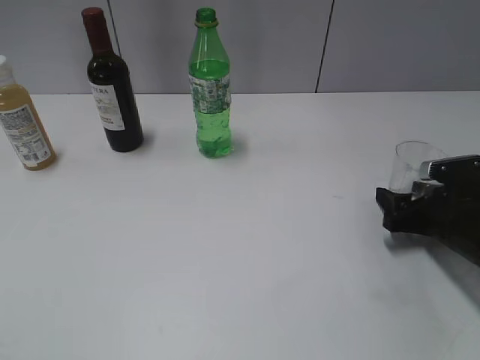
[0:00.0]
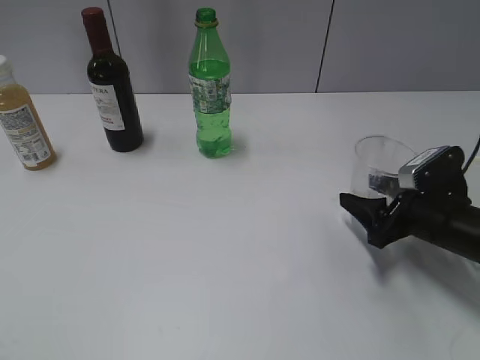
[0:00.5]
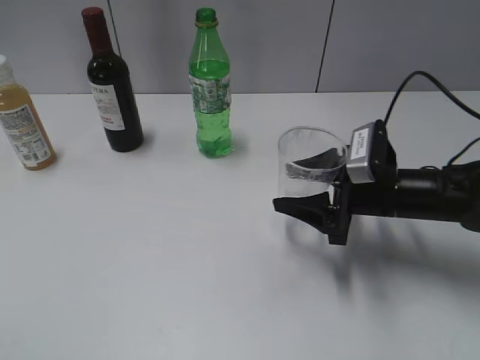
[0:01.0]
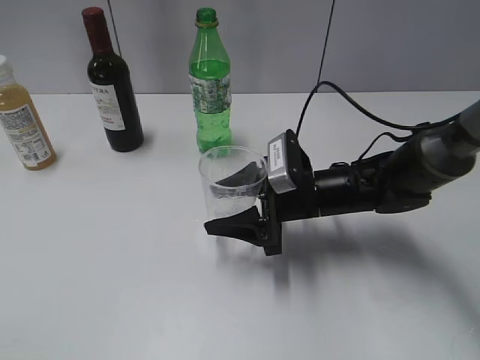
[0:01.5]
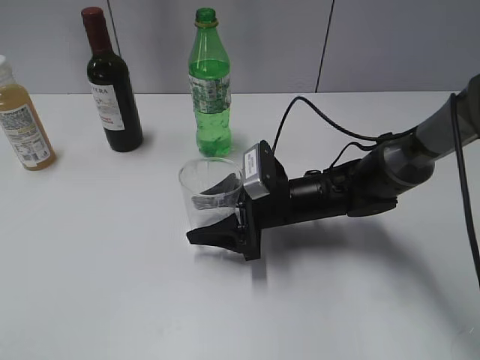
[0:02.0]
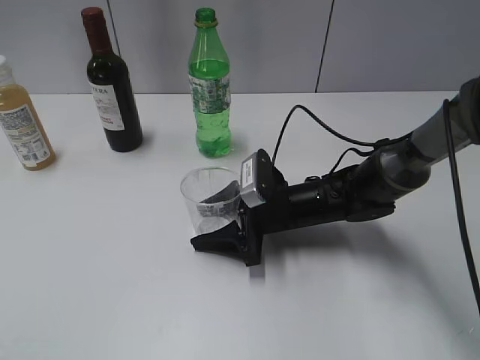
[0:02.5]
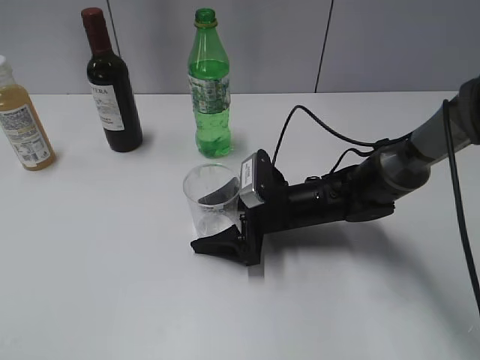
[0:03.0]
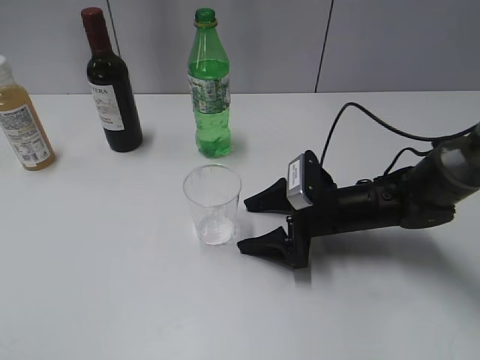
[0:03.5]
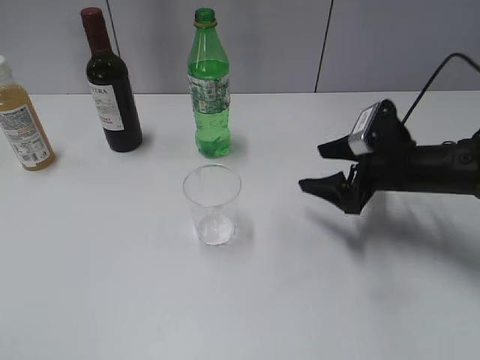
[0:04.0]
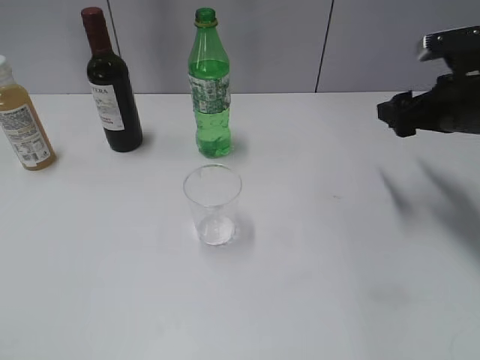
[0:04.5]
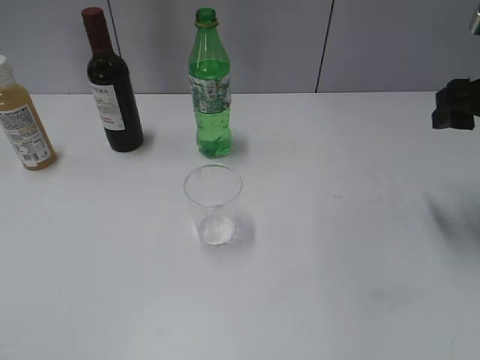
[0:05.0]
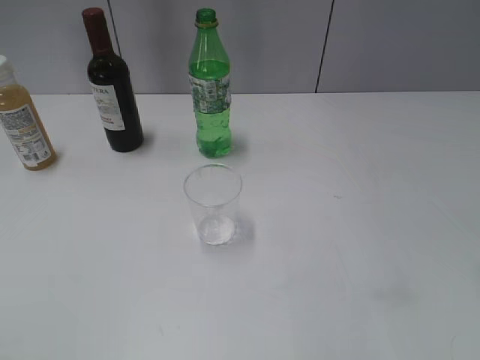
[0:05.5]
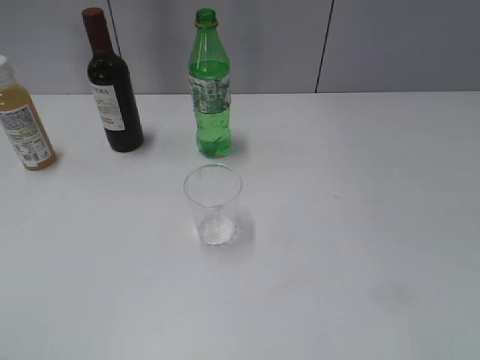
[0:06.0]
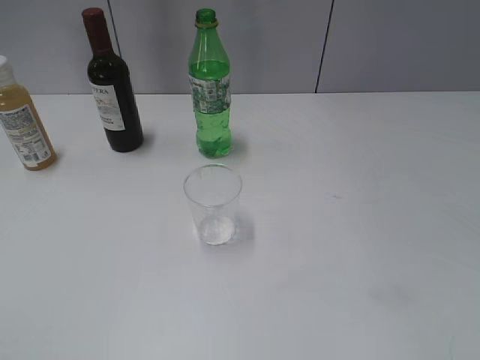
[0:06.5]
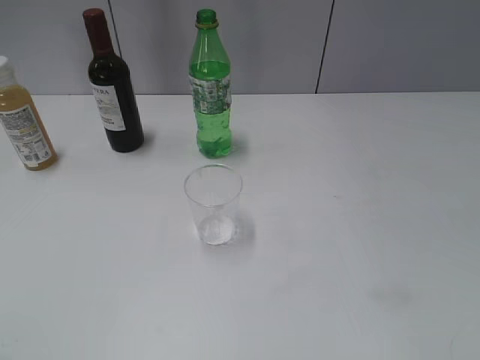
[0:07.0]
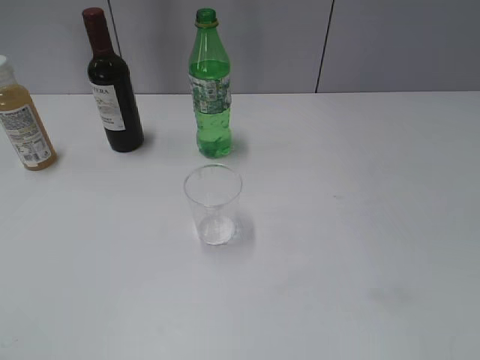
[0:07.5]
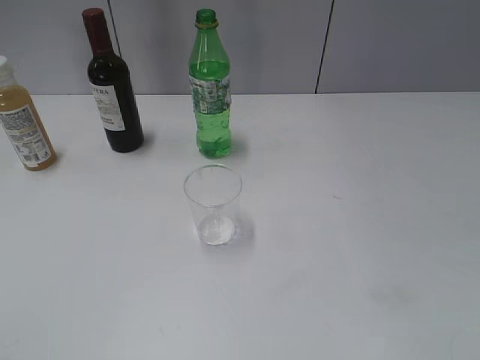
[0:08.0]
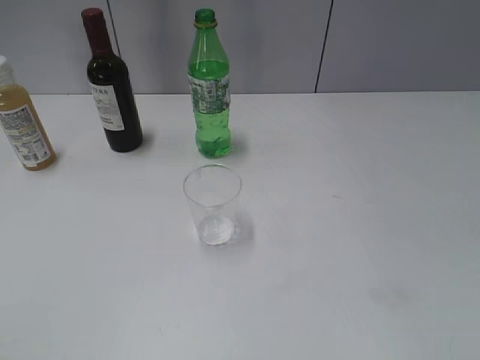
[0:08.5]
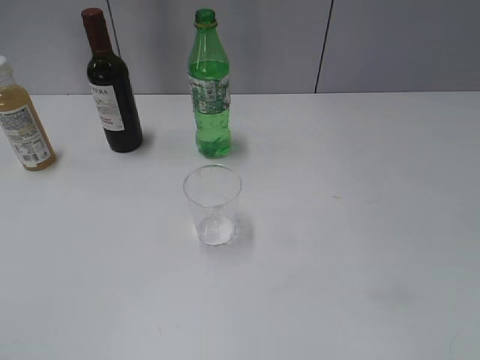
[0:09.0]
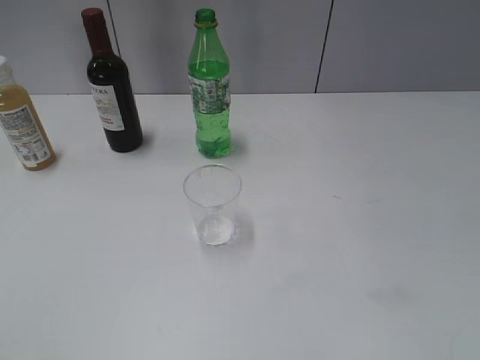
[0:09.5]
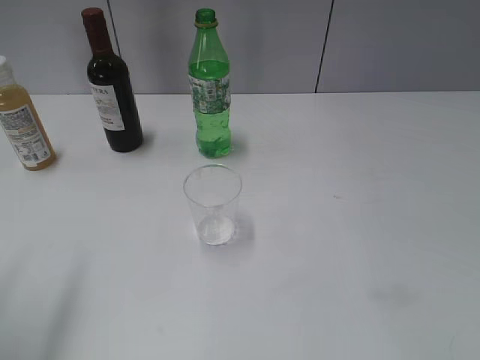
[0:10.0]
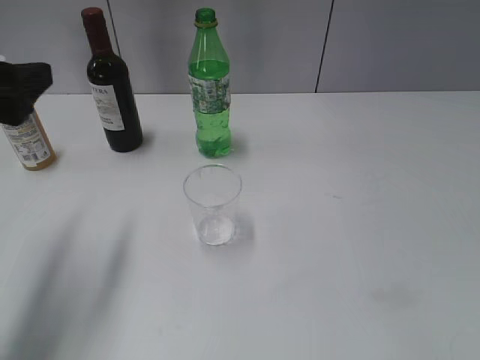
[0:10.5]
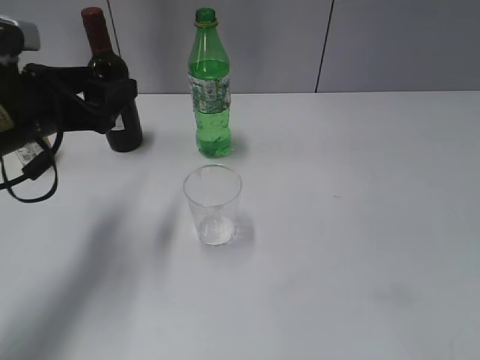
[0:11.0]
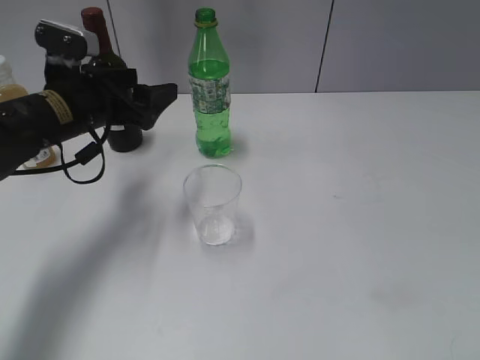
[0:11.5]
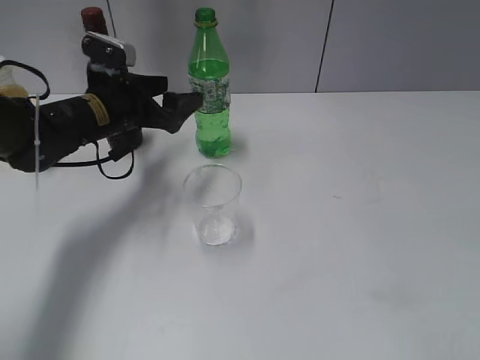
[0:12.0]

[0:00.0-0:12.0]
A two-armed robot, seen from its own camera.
Step, 0:00.0 to 0:03.5: Place the transparent cup on the table with right gripper.
0:00.0 to 0:02.0: The right gripper travels to the left by roughly 20 cm.
0:02.0 to 0:04.0: The right gripper travels to the right and upward by roughly 15 cm, and opens its fingers.
0:04.0 to 0:06.0: The right gripper shifts approximately 35 cm backward and upward, and closes its fingers.
0:08.0 to 0:10.0: The left gripper moves forward, some 15 cm, and opens.
0:10.0 to 0:12.0: The left gripper goes some 30 cm forward, downward and to the right.

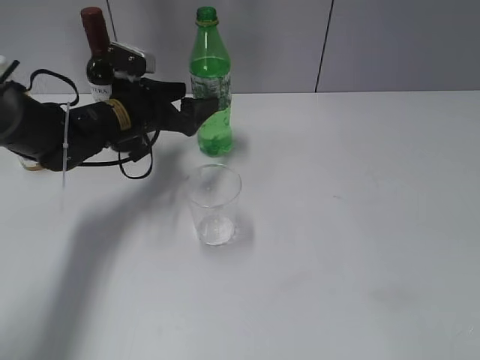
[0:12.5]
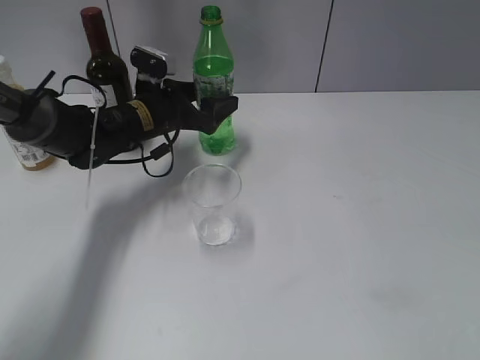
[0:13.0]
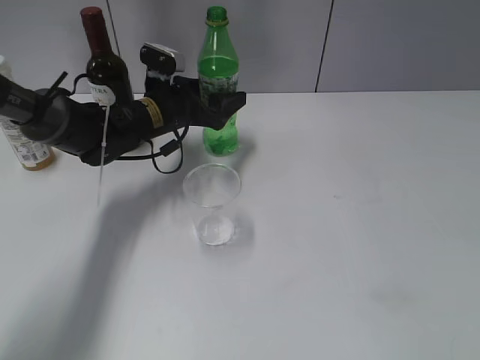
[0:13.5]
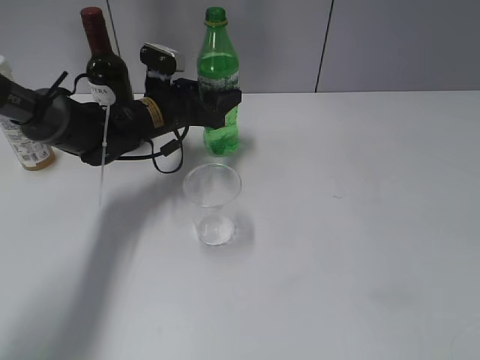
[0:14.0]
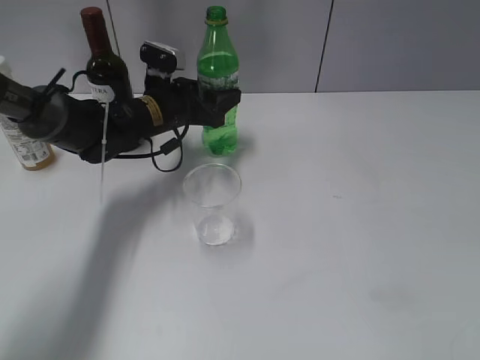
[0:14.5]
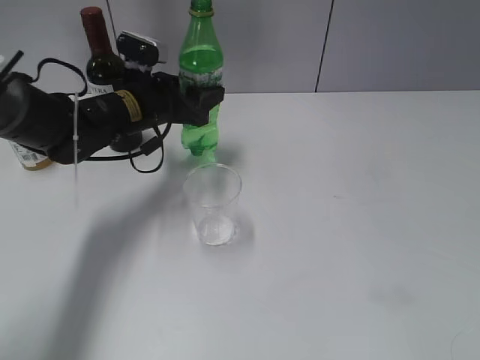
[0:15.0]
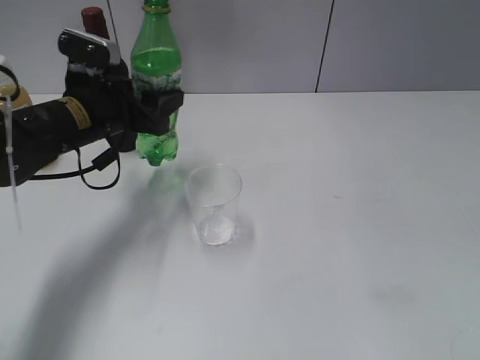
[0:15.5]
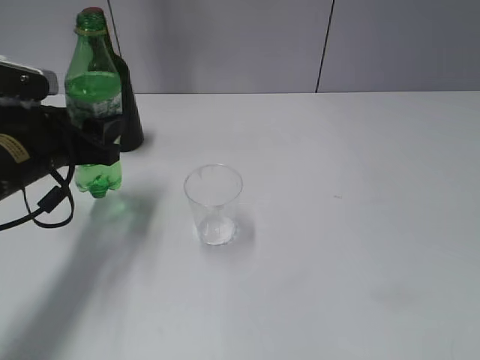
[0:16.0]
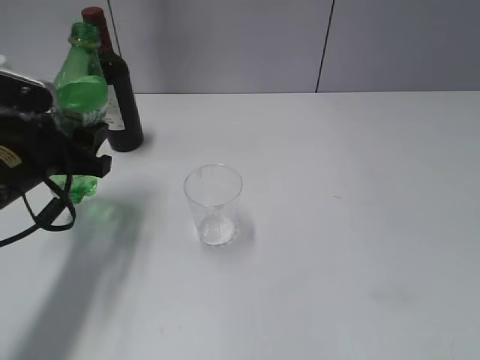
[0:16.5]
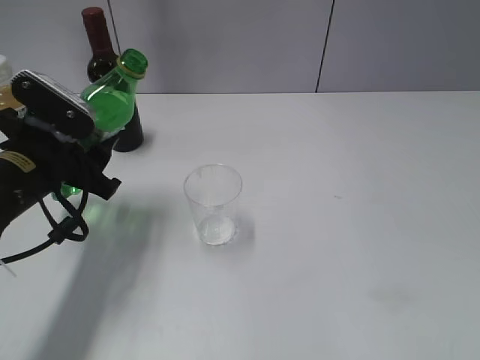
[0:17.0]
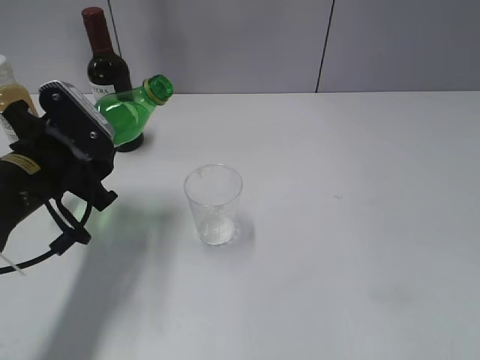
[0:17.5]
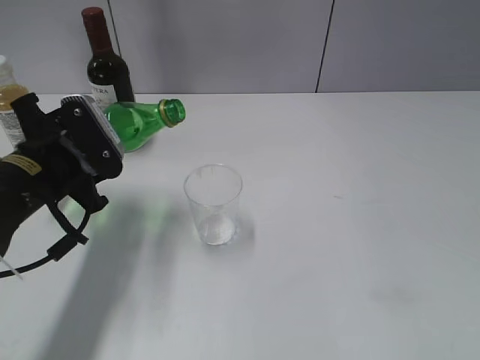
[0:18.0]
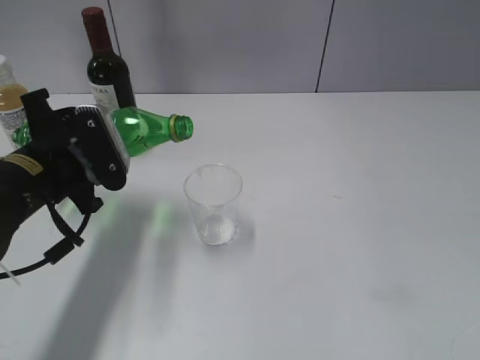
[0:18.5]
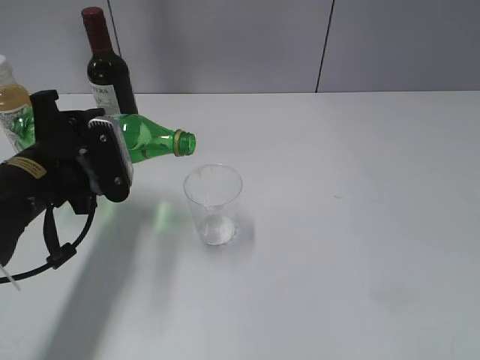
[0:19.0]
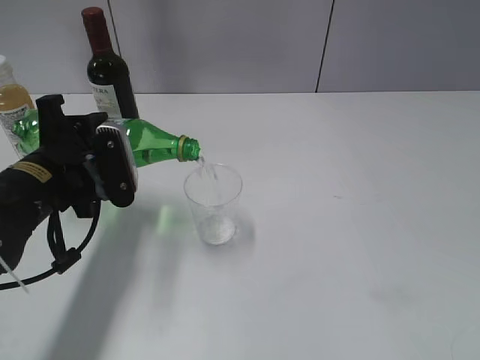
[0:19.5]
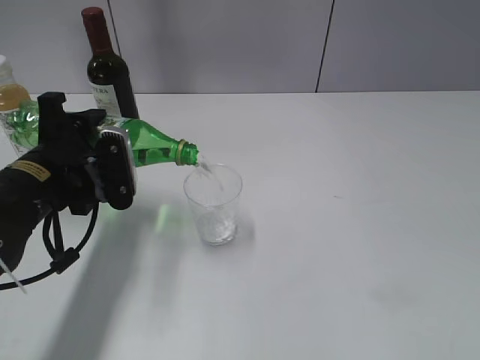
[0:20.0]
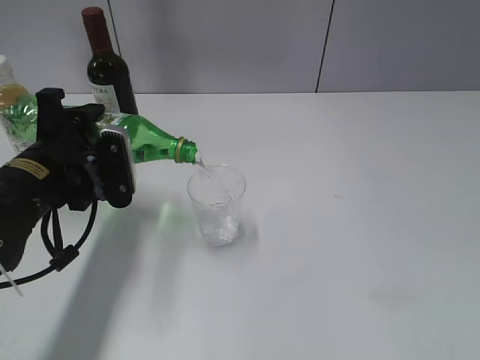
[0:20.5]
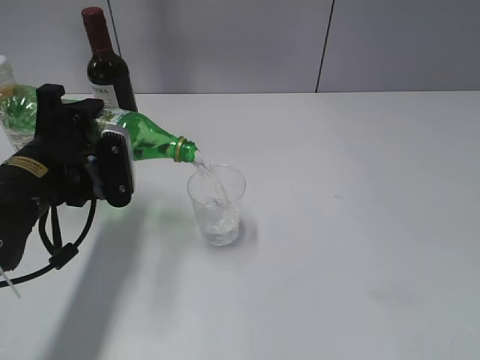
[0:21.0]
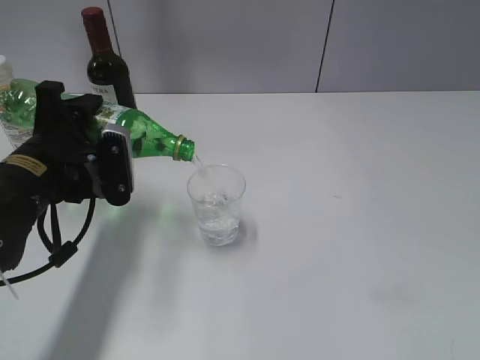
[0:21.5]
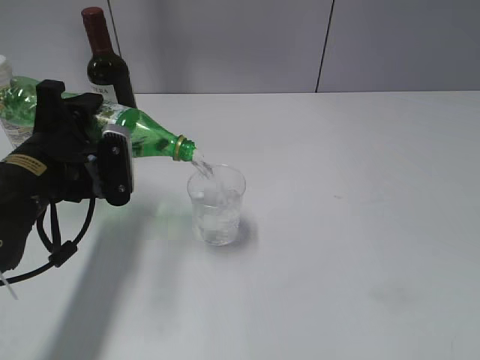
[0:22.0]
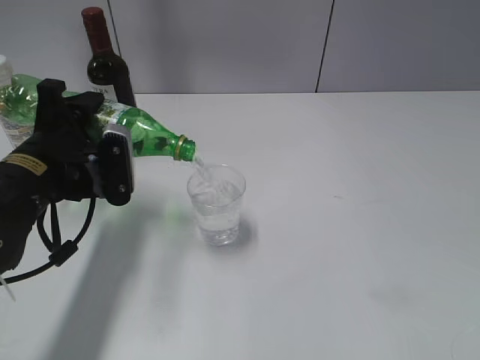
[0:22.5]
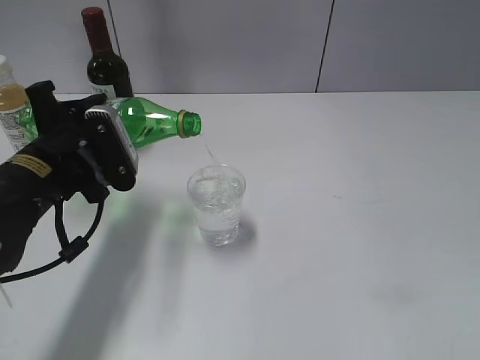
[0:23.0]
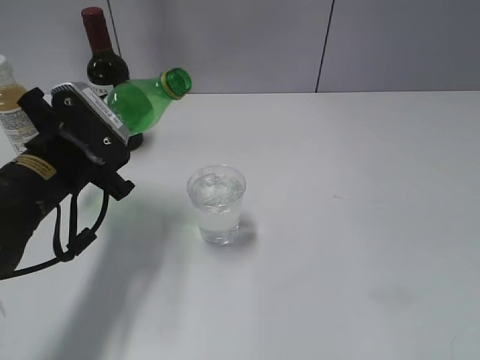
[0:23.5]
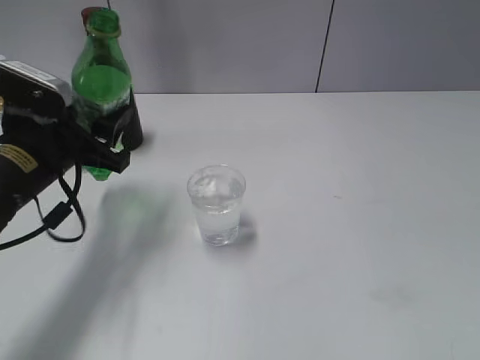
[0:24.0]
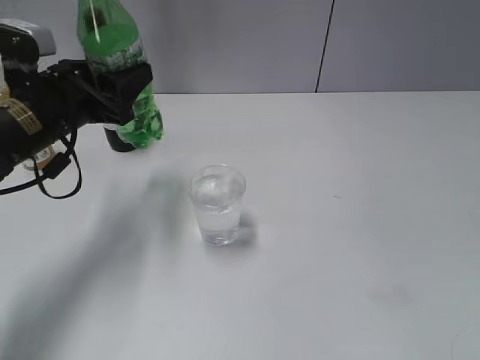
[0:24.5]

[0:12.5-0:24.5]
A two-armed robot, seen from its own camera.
Step, 0:14.5 to 0:23.0: Pour the sprite from bottle to cup with left gripper.
0:12.5 to 0:14.5: The left gripper closes.
0:14.5 to 0:16.5: The left gripper is displaced backward and to the left by approximately 20 cm.
0:18.5 to 0:20.5: The grippers move only a little.
0:20.5 to 0:22.5: The grippers make only small movements.
0:22.5 to 0:24.5: The left gripper is displaced forward by approximately 5 cm.

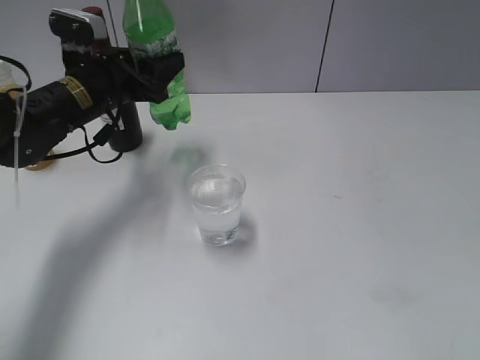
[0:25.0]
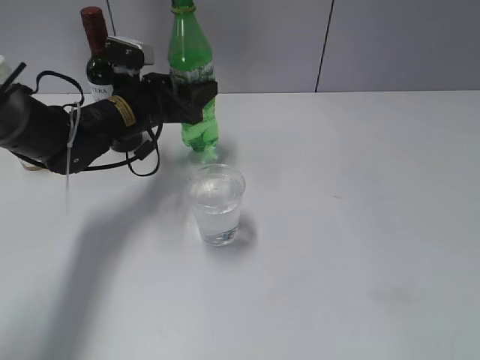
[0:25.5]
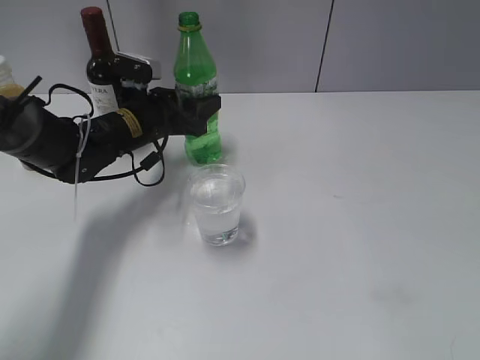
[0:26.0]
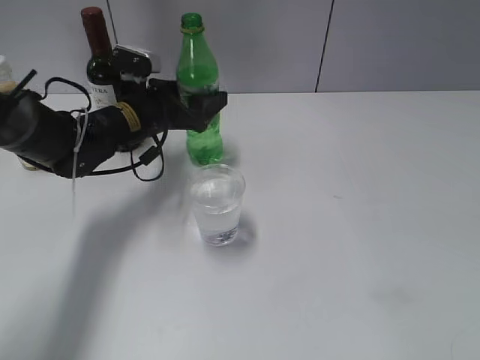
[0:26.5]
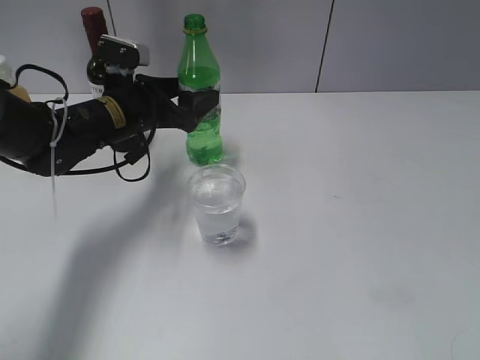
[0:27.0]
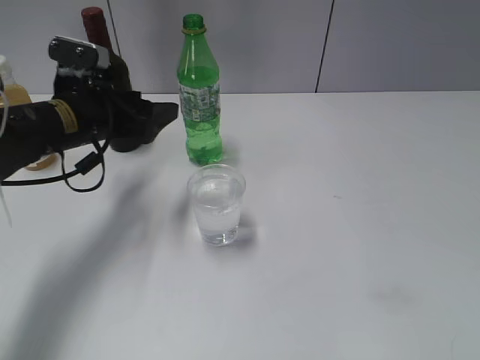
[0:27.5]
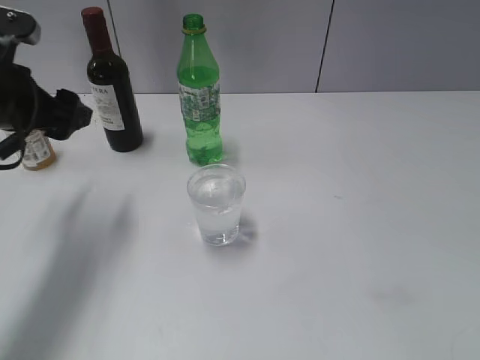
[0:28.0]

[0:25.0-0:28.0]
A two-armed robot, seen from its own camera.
Step, 0:25.0 to 0:27.0: Place the sprite bottle on the table with left gripper.
0:25.0 to 0:26.5: The left gripper changes place by roughly 5 cm, and opens.
0:26.5 to 0:28.0: The left gripper goes approximately 20 cm backward, to the left and upward.
